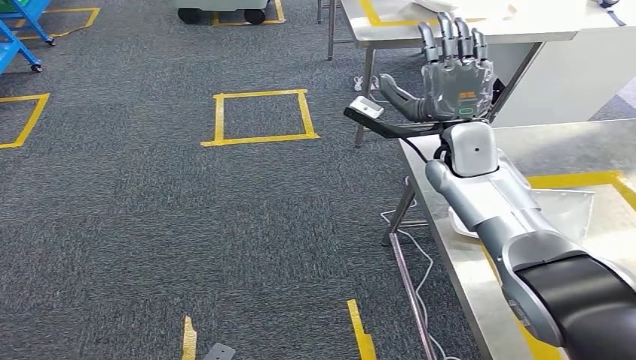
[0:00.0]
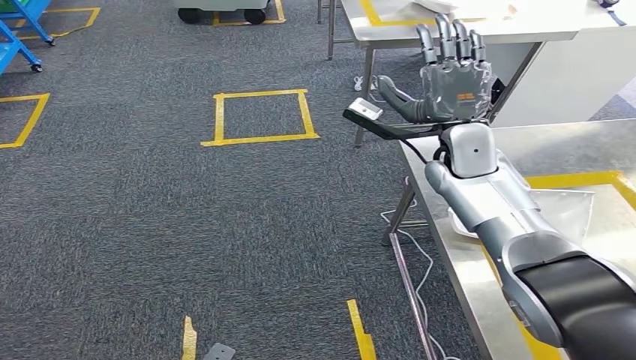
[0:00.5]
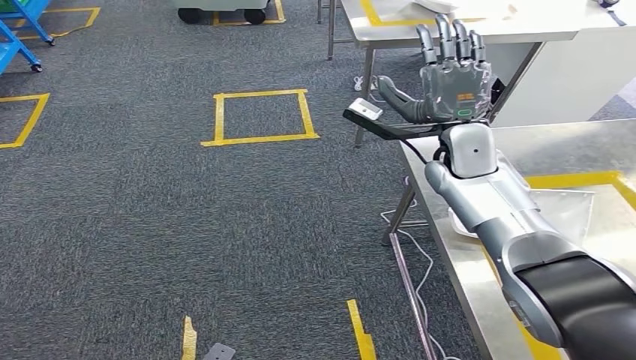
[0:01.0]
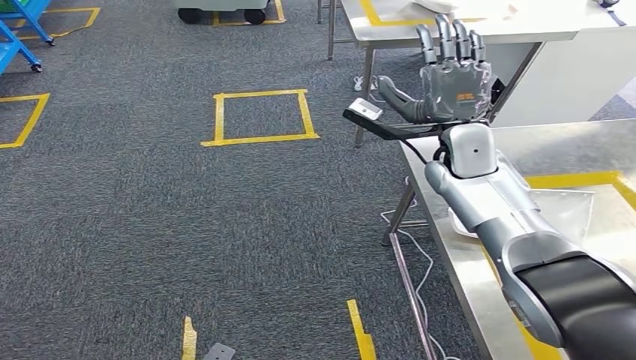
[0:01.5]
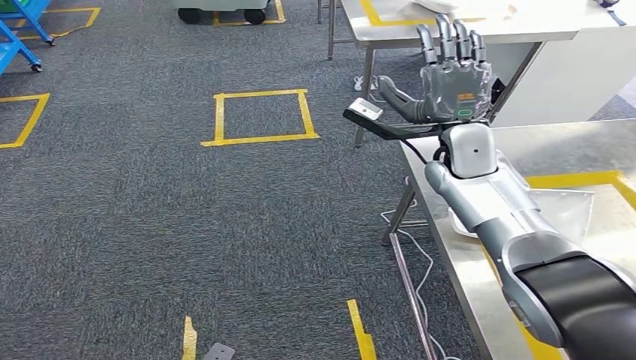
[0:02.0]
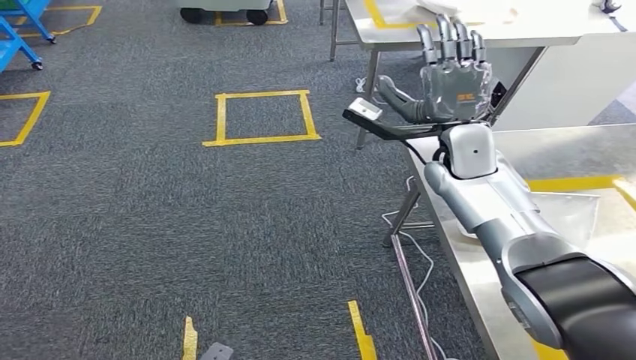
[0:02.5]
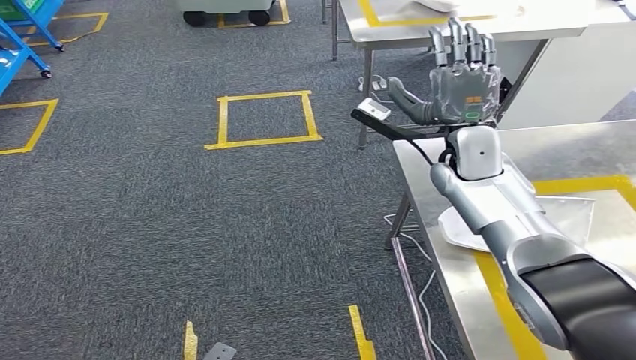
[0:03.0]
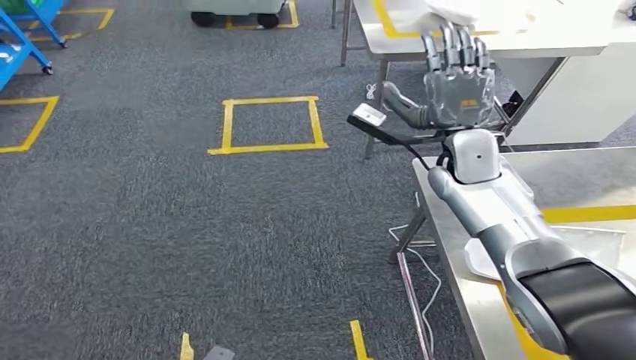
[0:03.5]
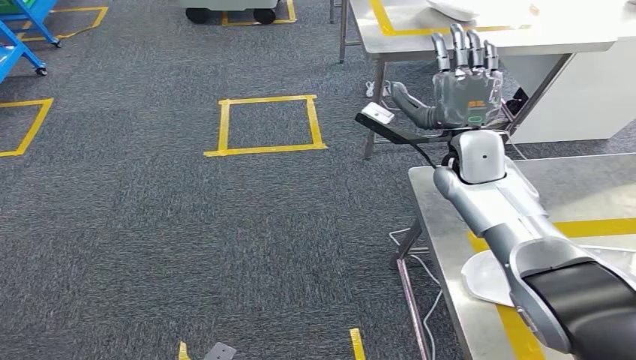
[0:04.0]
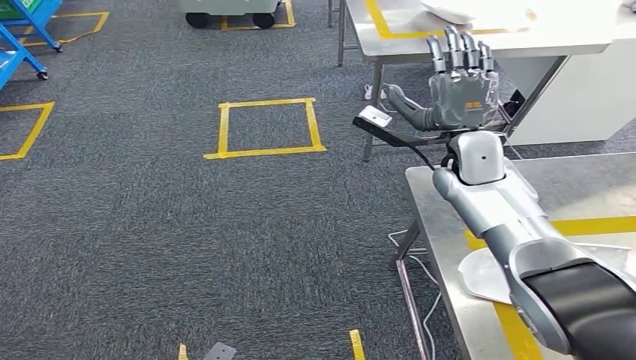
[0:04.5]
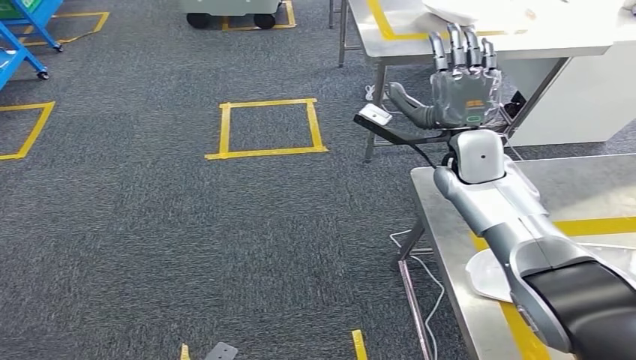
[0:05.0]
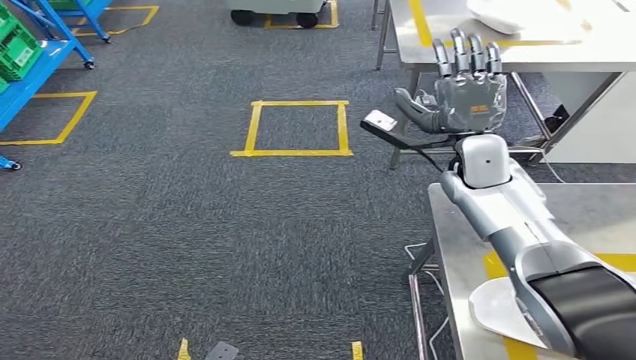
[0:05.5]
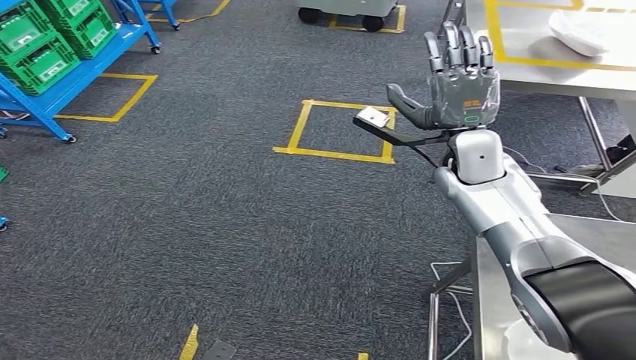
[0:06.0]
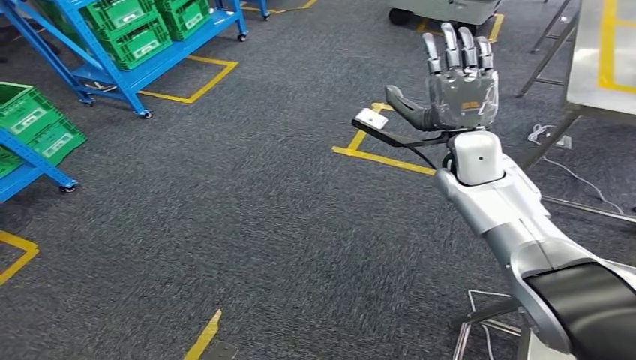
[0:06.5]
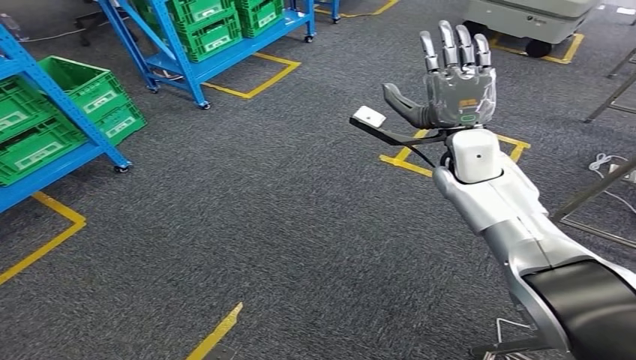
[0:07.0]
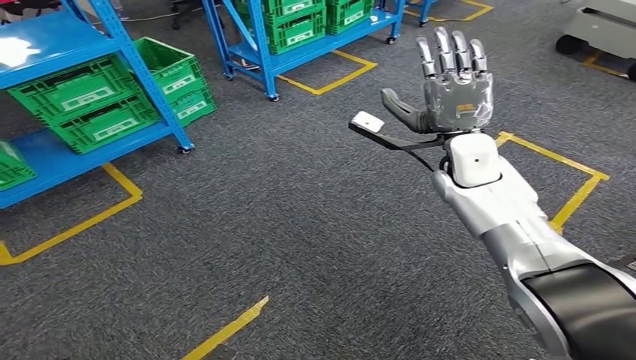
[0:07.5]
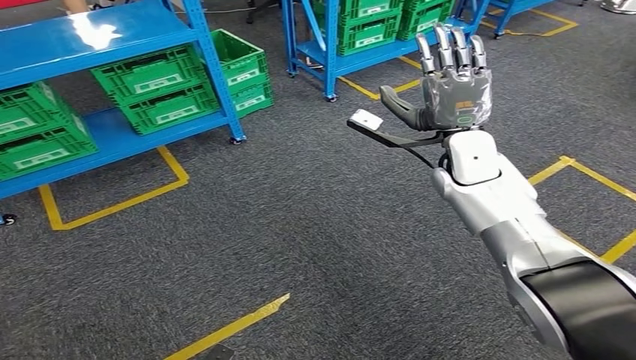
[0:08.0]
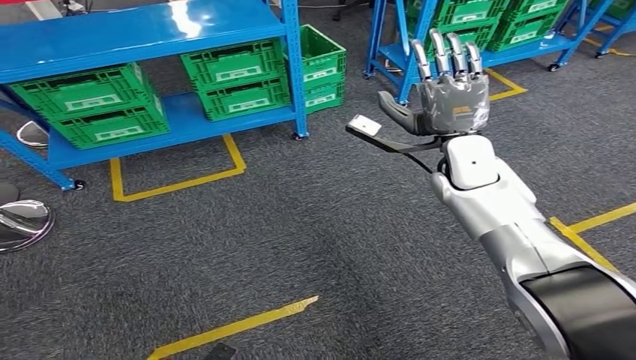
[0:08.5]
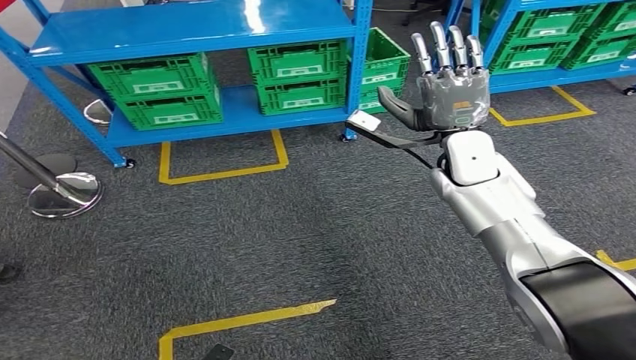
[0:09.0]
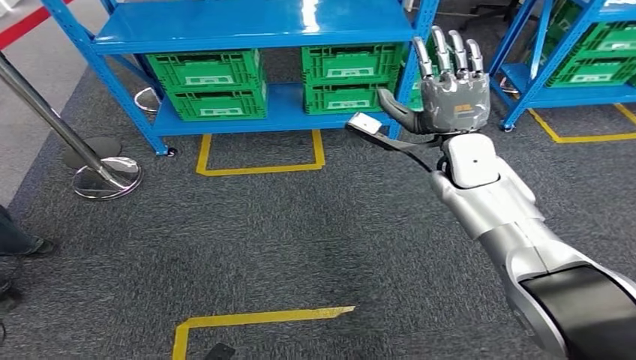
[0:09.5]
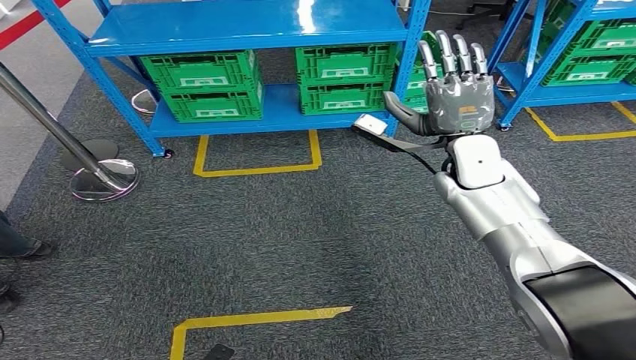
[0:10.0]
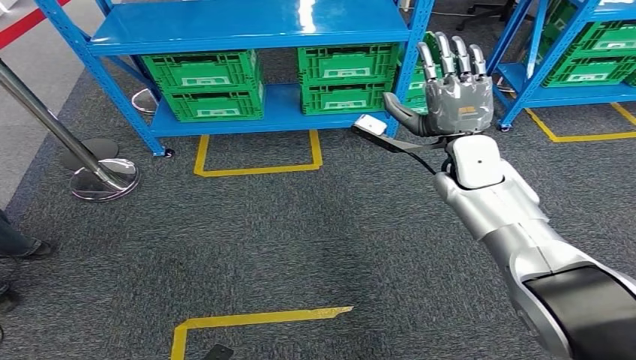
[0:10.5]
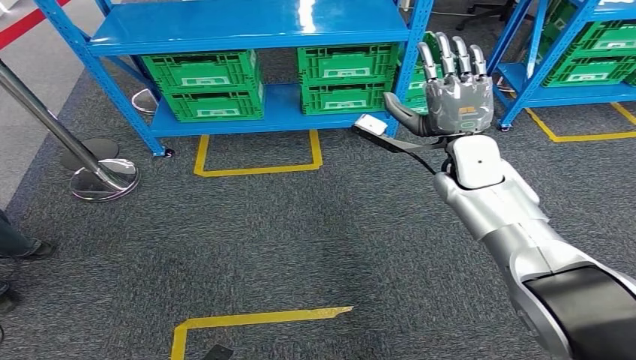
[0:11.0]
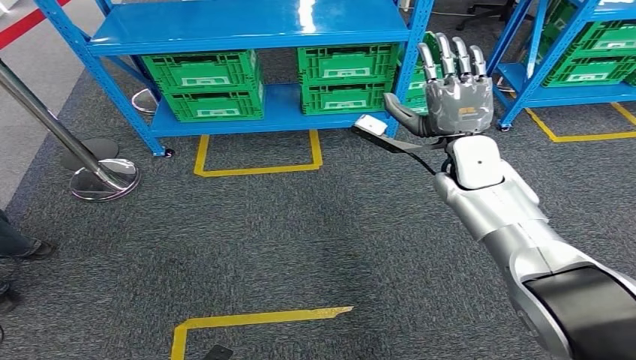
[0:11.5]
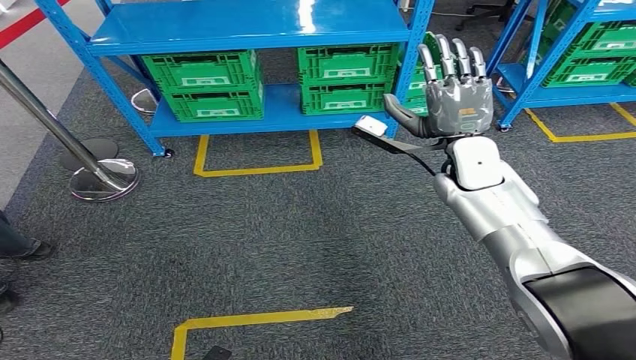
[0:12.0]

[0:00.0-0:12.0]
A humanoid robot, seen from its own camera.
0:00.0 to 0:02.0: Both hands stay about where they are.
0:10.0 to 0:12.0: Neither hand changes place.

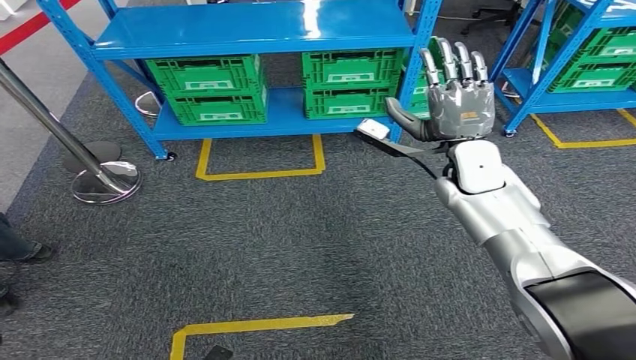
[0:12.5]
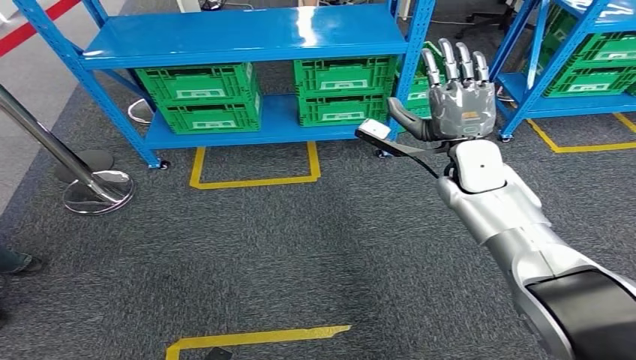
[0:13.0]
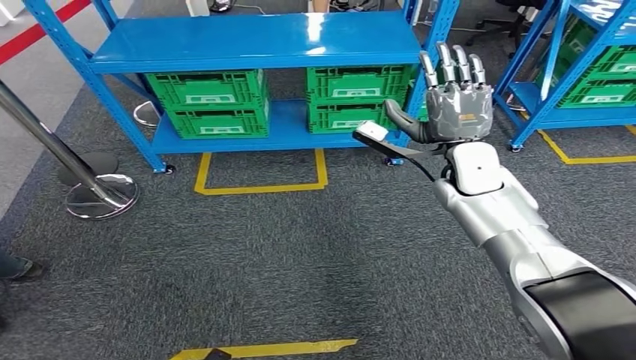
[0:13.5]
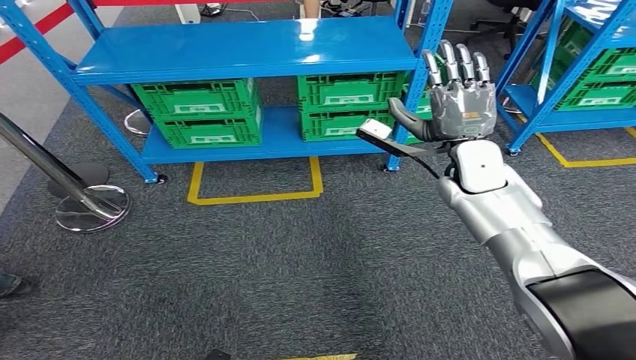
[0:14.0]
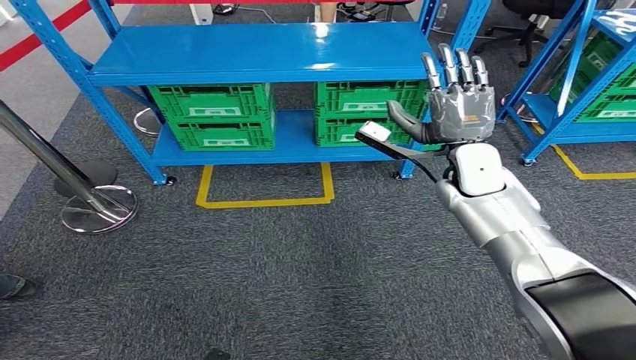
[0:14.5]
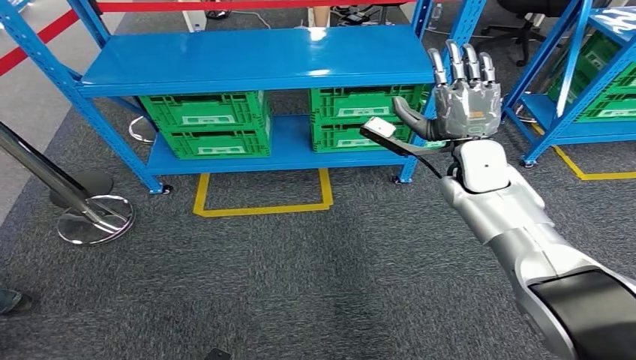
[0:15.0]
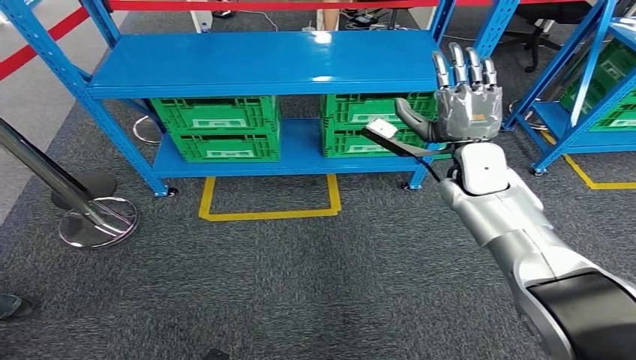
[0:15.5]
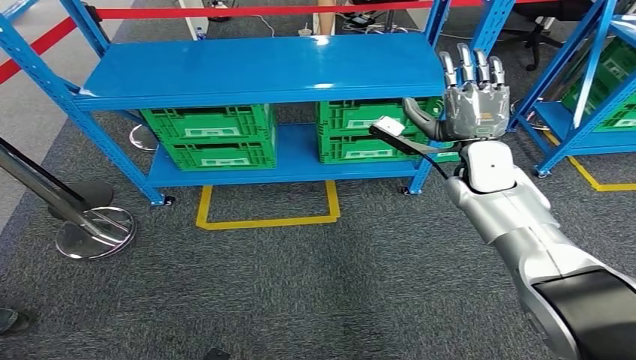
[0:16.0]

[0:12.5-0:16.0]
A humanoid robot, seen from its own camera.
Step, 0:12.5 to 0:16.0: Return to the initial position at the workbench.
